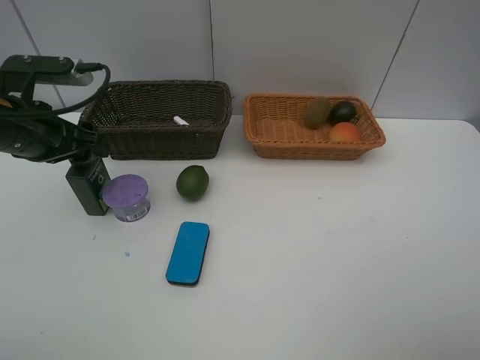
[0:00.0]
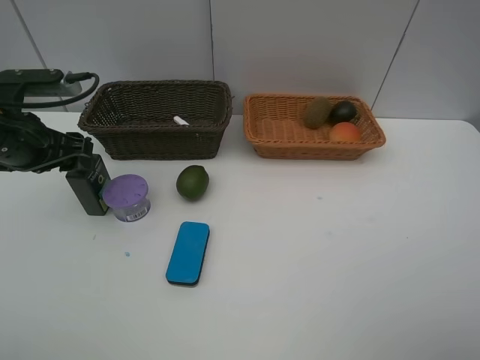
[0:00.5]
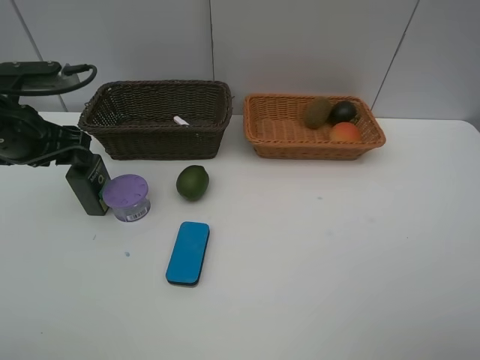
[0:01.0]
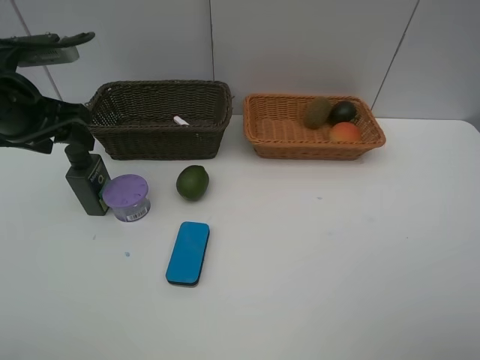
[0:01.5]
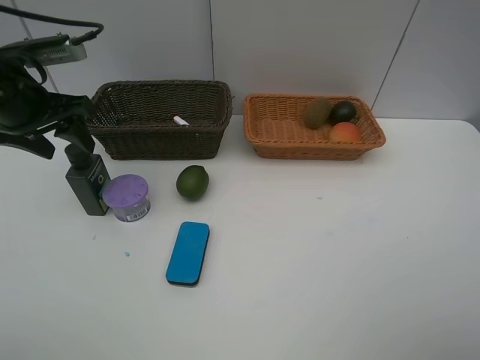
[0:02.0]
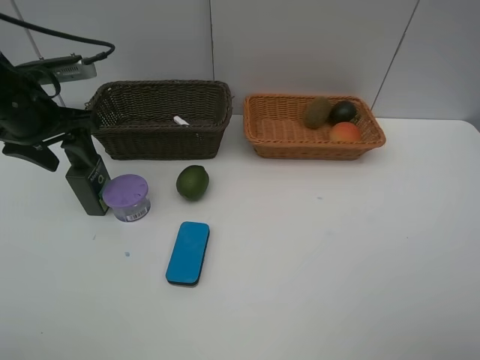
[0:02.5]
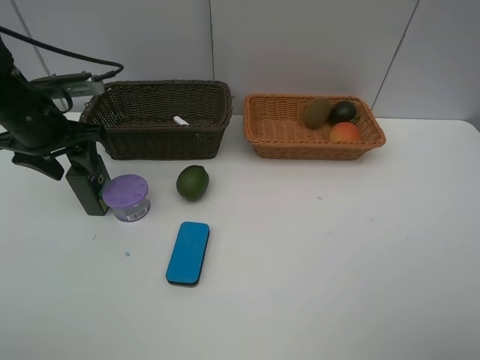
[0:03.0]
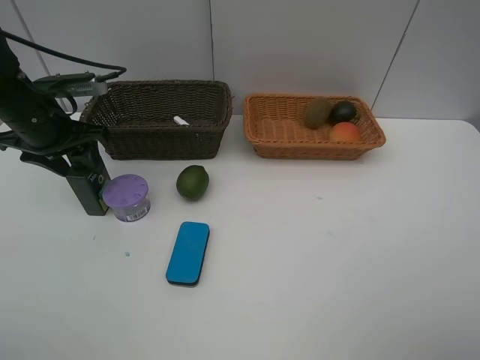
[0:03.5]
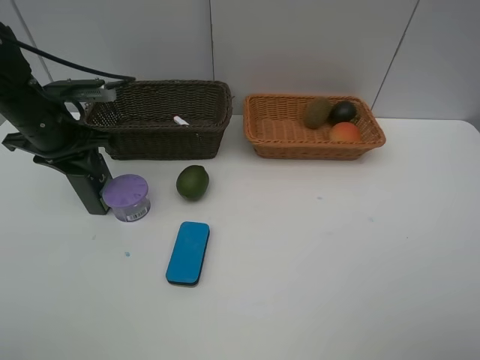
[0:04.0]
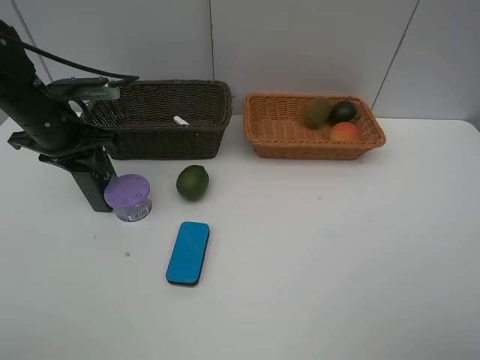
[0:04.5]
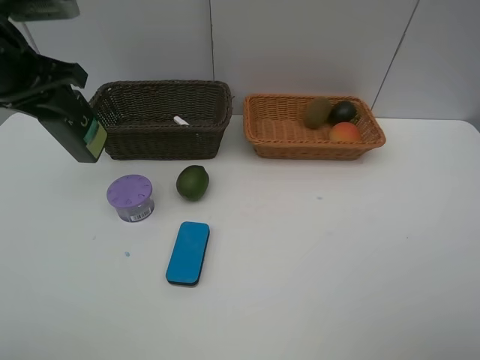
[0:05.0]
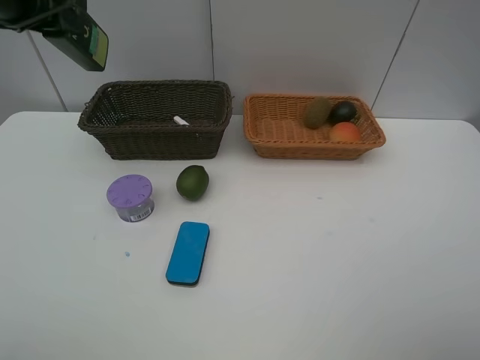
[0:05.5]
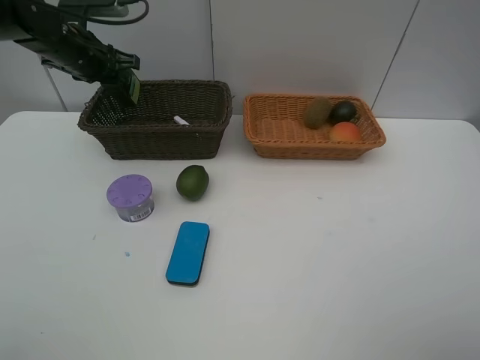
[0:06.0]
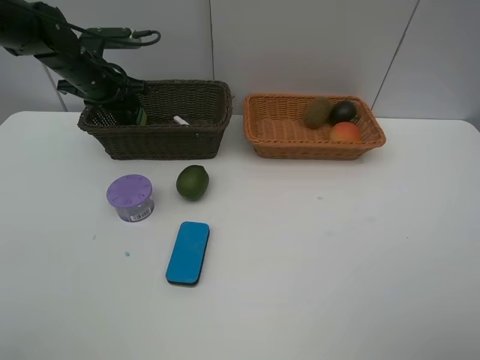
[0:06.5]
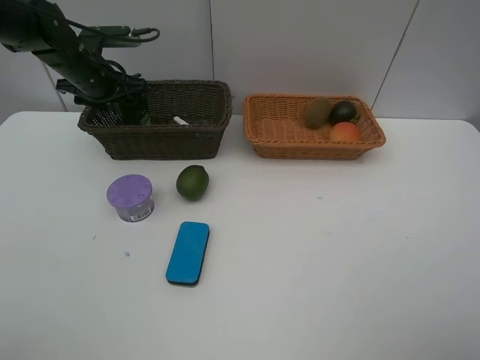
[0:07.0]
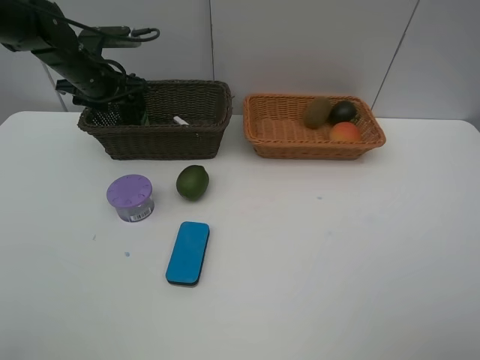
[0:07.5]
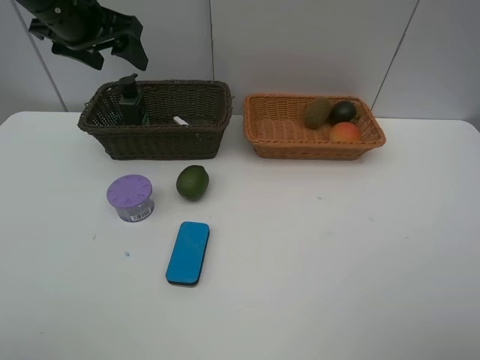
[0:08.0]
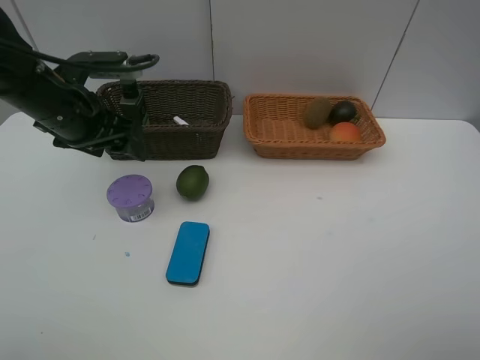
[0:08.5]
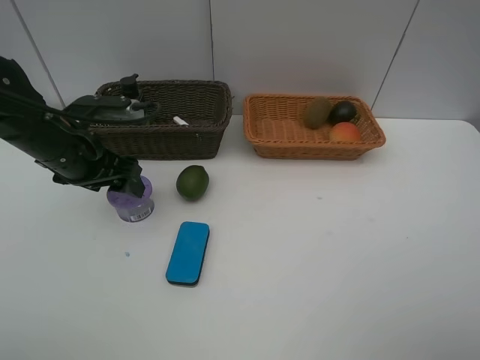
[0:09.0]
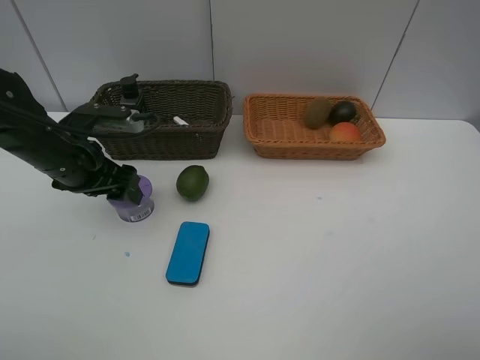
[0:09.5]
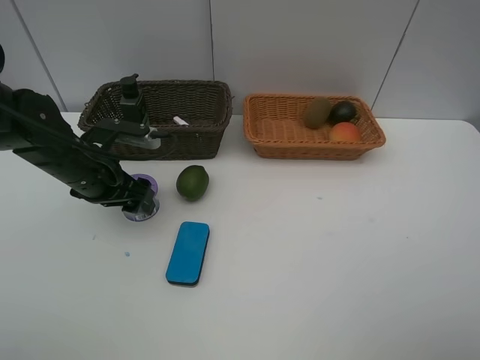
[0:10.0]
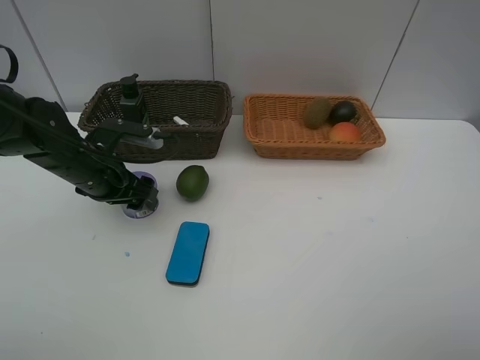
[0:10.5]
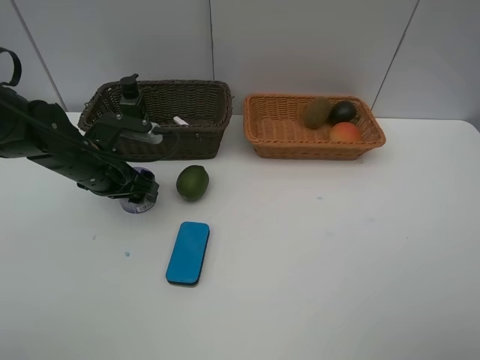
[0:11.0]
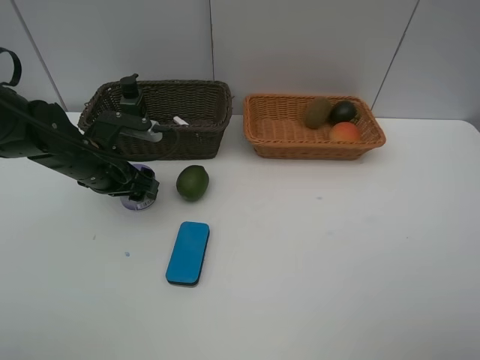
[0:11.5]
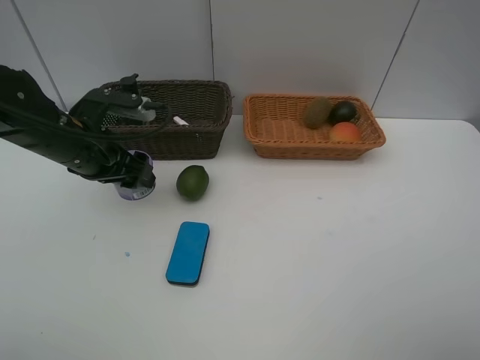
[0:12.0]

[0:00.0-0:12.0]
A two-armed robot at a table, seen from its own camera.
Task of the whole recording: Place multiple objects separately in different baskets.
Step, 0:00.0 to 0:04.5: Pick up the hard facial cleanser with left gripper.
Step, 0:05.0 to 0:07.5: Place the hard facial cleanser in the dark basket with left gripper.
Step, 0:08.0 to 0:12.0: Pick up Incense box with left gripper.
0:00.0 to 0:02.0: The left gripper changes place by some 5 cm.
0:02.0 to 0:04.0: The left gripper goes some 5 cm downward, and closes its fingers.
0:04.0 to 0:06.0: The left gripper travels forward by approximately 10 cm, and reaches approximately 15 cm upward, then returns.
0:06.0 to 0:08.0: The left gripper is displaced upward and backward by about 10 cm, and opens.
0:08.0 to 0:10.0: The left gripper goes about 20 cm downward and backward.
0:10.0 to 0:12.0: The grippers stay close to where they were, moving slightly.

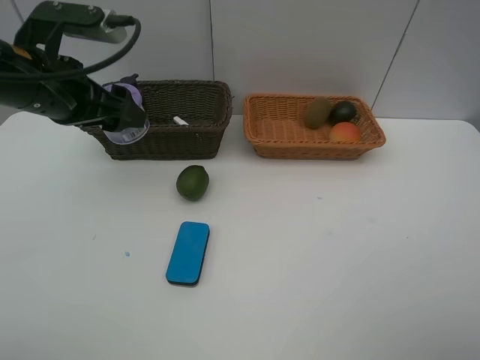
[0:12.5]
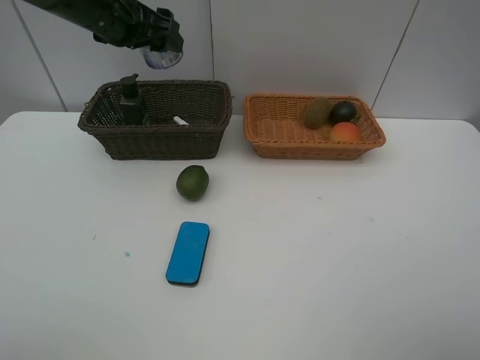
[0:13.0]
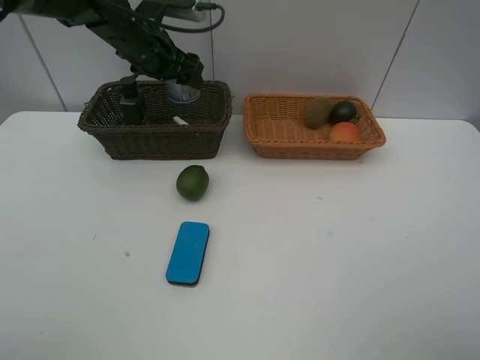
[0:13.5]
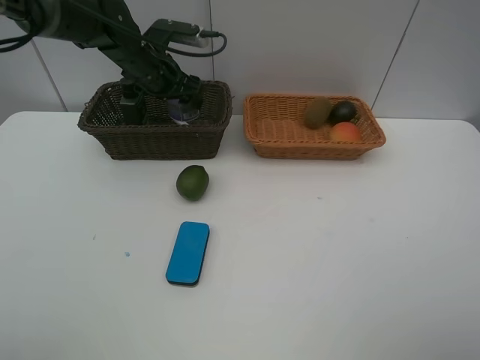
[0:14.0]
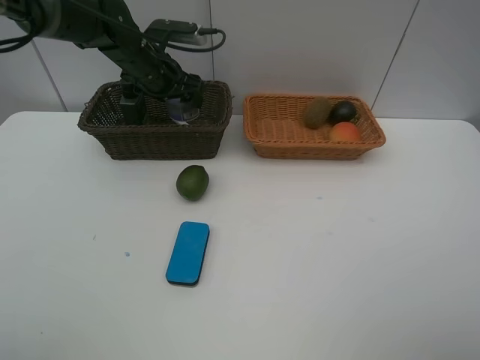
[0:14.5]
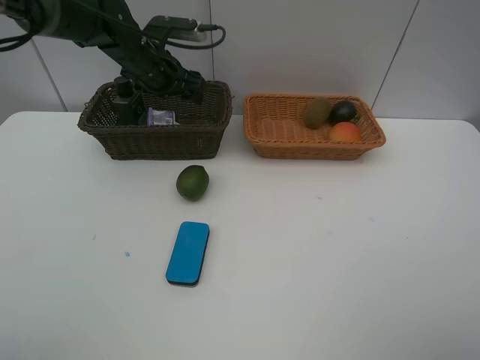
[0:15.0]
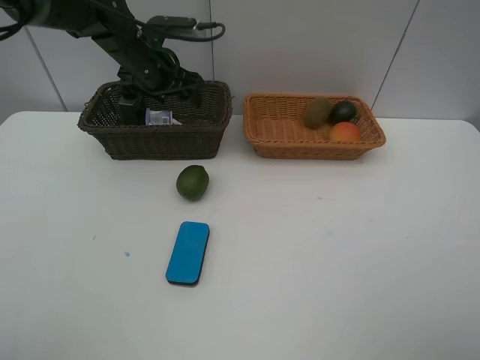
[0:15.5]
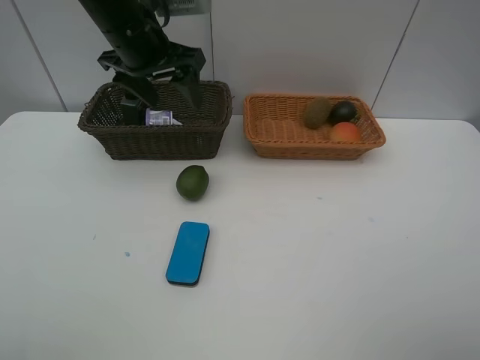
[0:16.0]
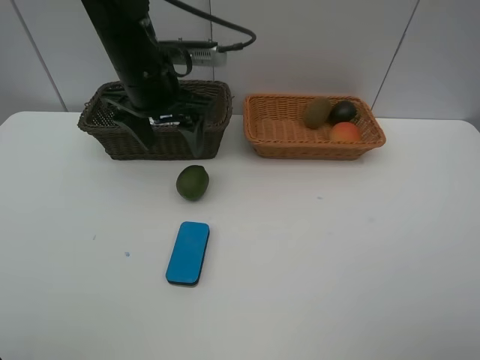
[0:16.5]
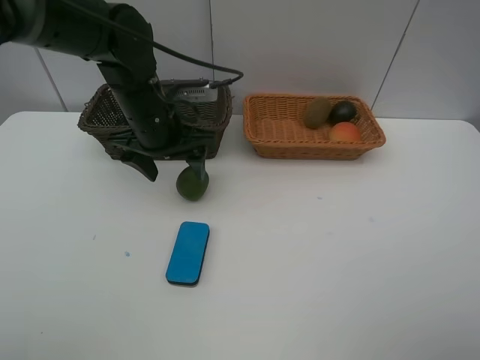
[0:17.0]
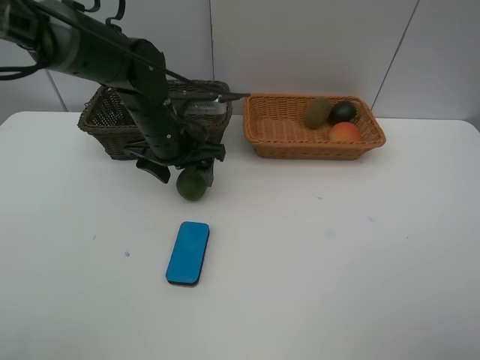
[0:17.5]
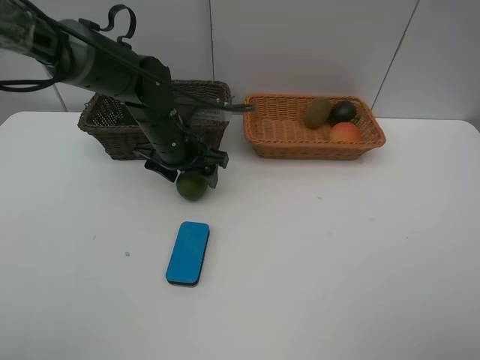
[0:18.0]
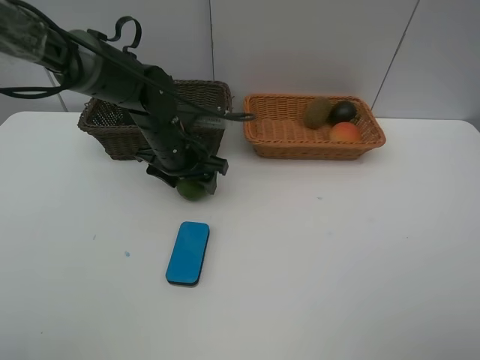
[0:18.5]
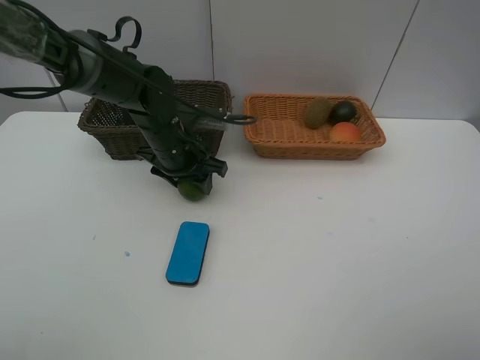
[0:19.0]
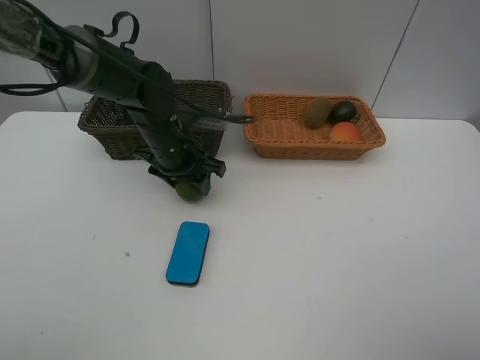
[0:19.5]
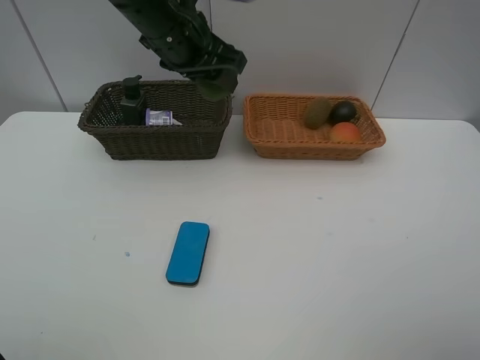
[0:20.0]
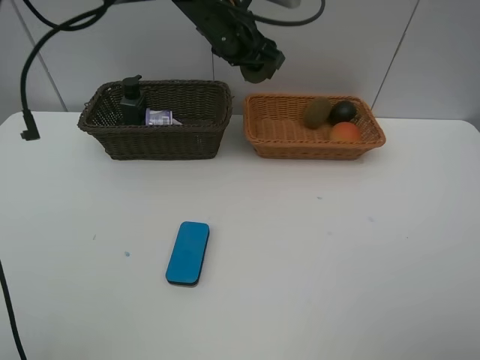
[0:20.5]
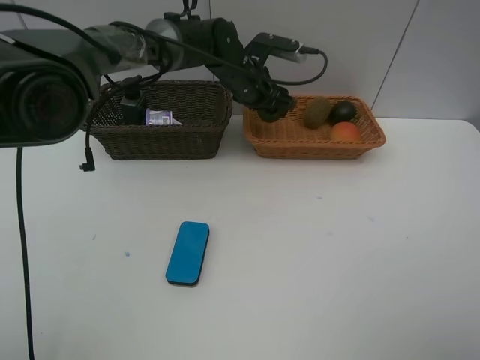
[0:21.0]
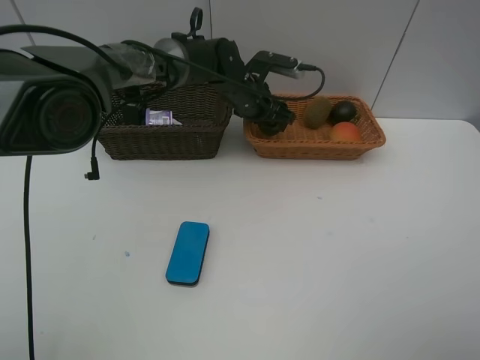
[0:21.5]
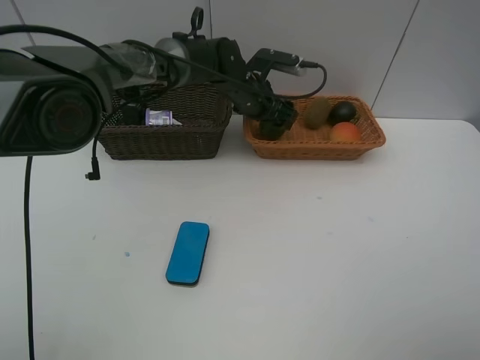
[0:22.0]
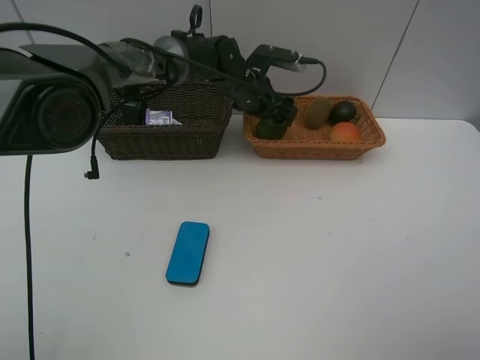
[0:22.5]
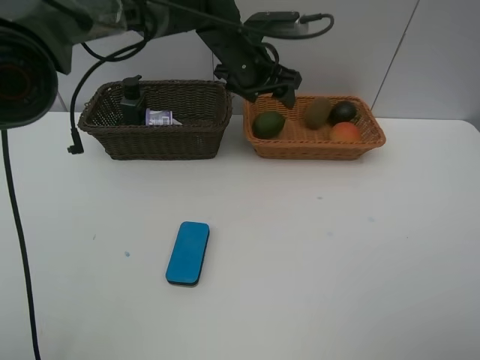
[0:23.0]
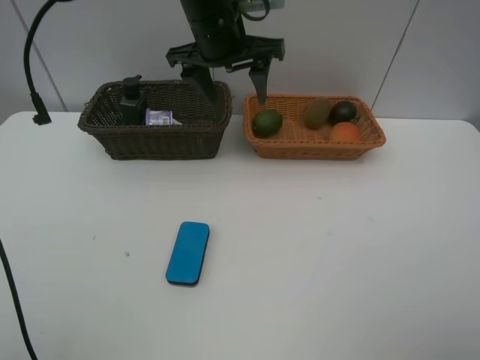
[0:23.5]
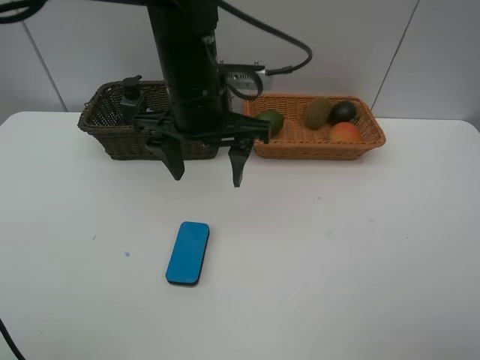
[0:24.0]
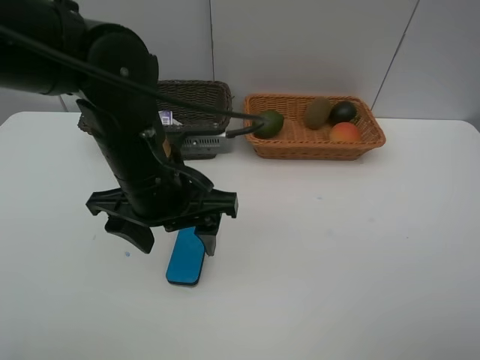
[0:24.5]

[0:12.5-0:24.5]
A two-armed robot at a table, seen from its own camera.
Task of the whole recording: Place multiple objects separately in different baskets.
Step, 0:12.5 to 0:15.0: Place the Incense box in the dark basket with left gripper.
Step, 0:15.5 to 0:19.5: Pick up the lime with left gripper.
Step, 0:20.0 to 0:23.0: Place the lime in the light basket with left gripper.
0:12.5 to 0:14.5: The left gripper heads forward, covering about 20 cm.
0:14.5 to 0:16.5: The left gripper heads backward, covering some 10 cm.
0:16.5 to 0:18.5: The left gripper moves downward, about 10 cm.
0:18.5 to 0:20.5: The left gripper goes roughly 20 cm upward, forward and to the right, and closes.
0:20.5 to 0:22.5: The left gripper heads downward, covering some 10 cm, and opens.
0:22.5 to 0:24.5: The left gripper heads backward, covering about 25 cm.

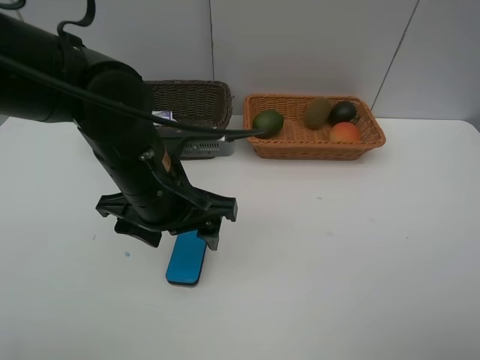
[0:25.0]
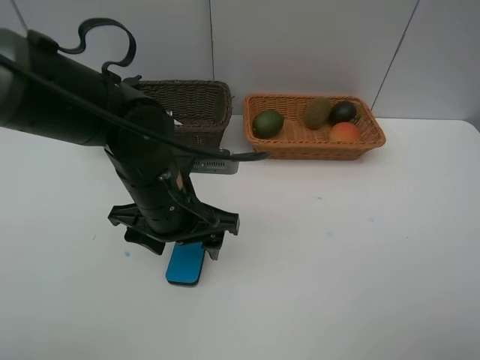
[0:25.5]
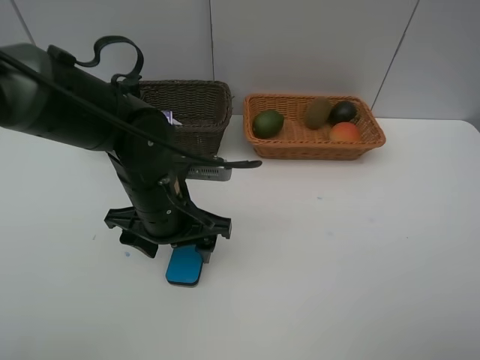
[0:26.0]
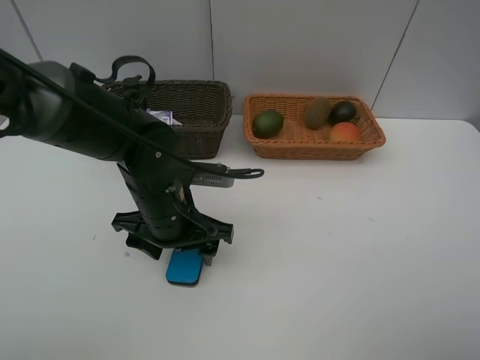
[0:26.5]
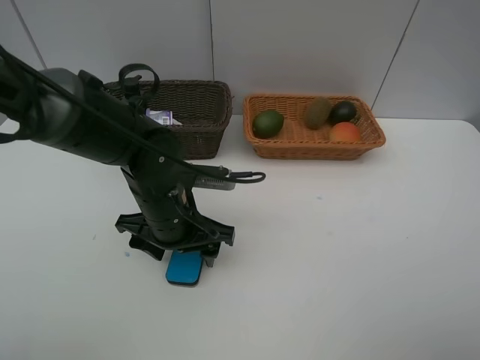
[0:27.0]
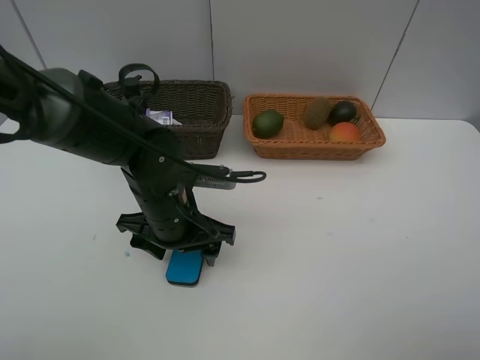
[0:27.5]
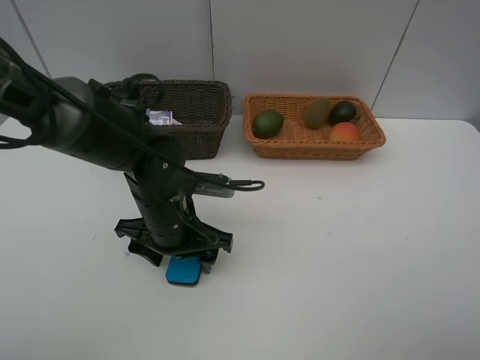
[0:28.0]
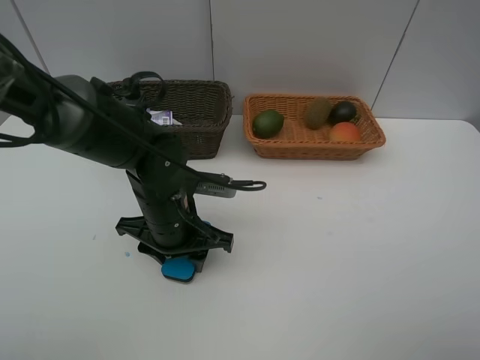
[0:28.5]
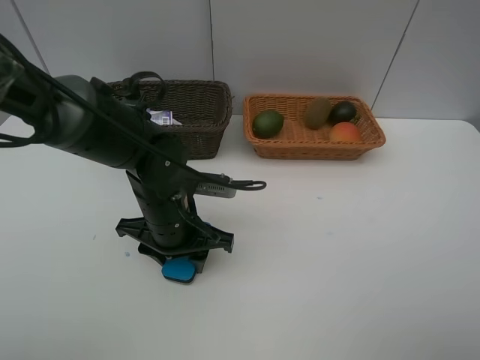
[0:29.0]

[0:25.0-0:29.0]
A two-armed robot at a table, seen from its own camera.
Task of the whole recording: Place multiple objects separately in different baskets.
0:25.0 to 0:27.0: The left gripper moves downward, roughly 5 cm.
0:27.0 to 0:29.0: The left gripper closes up.
